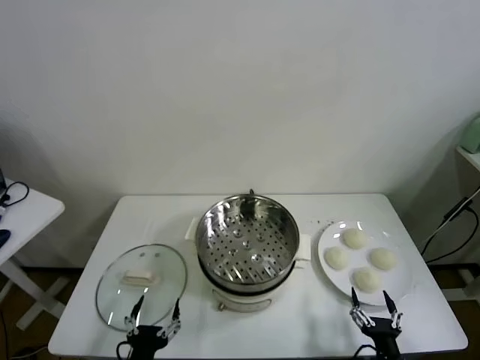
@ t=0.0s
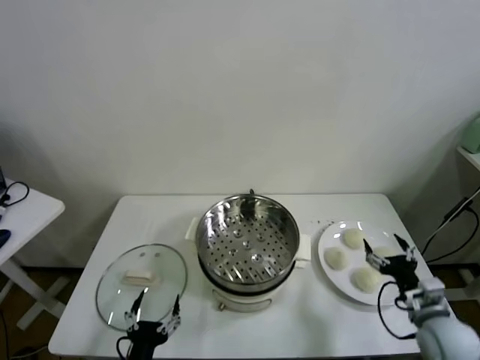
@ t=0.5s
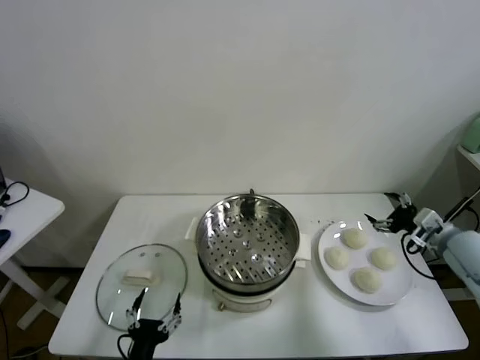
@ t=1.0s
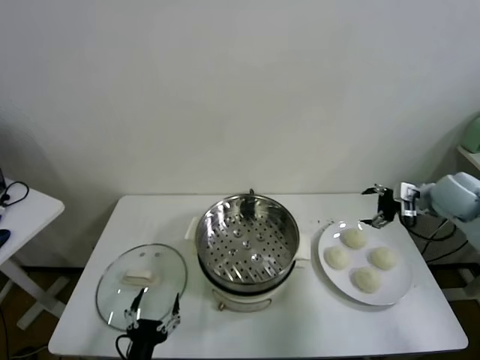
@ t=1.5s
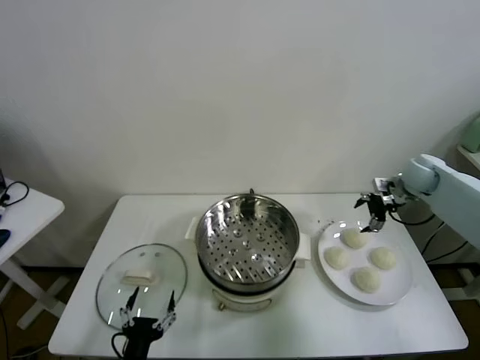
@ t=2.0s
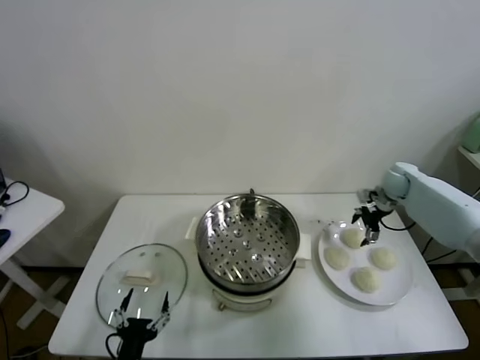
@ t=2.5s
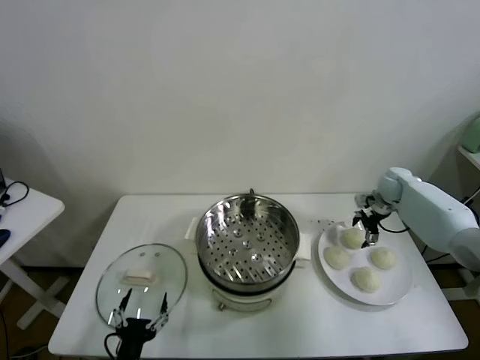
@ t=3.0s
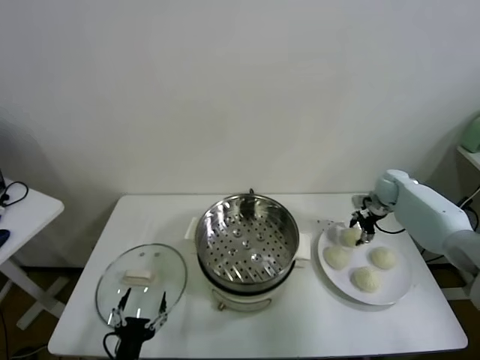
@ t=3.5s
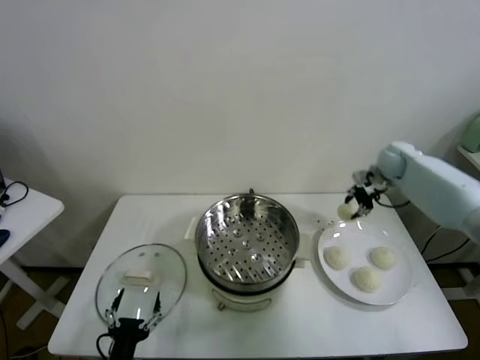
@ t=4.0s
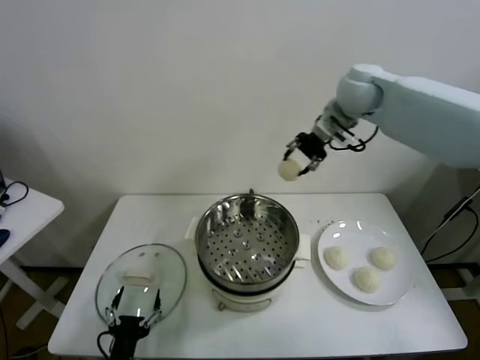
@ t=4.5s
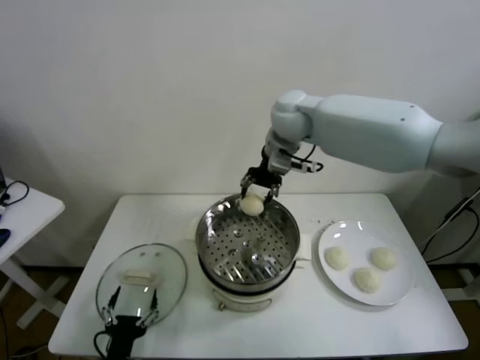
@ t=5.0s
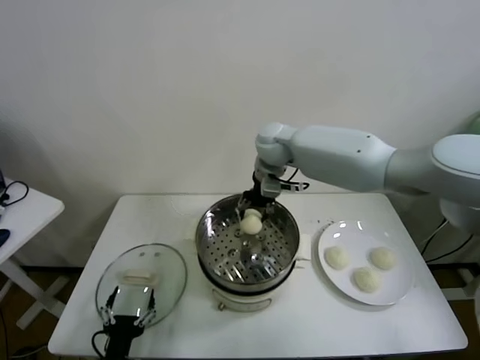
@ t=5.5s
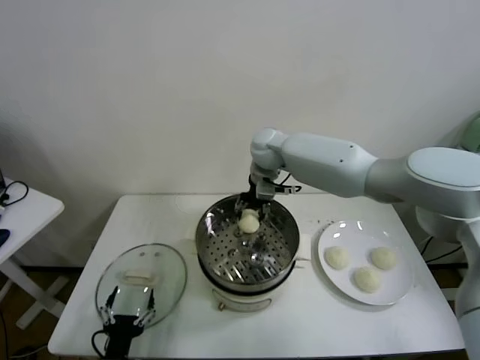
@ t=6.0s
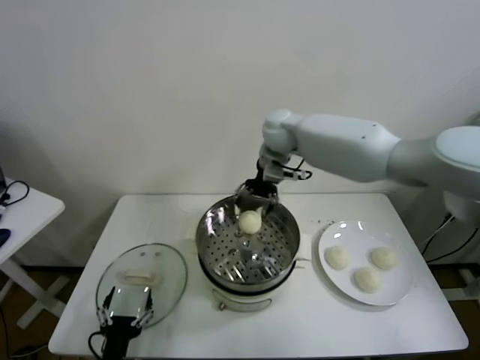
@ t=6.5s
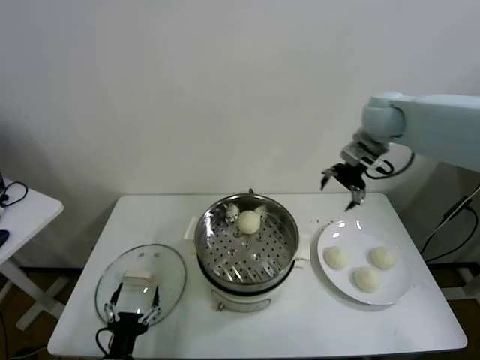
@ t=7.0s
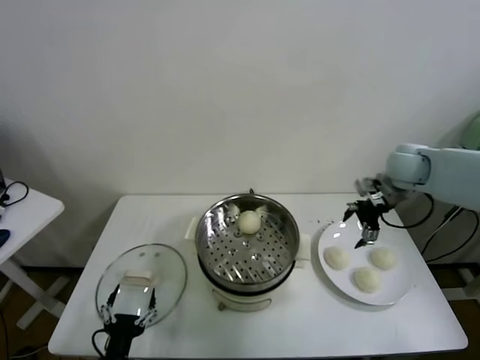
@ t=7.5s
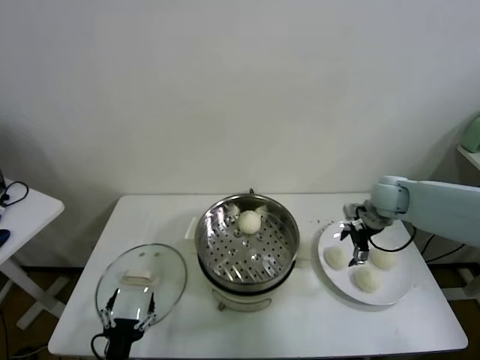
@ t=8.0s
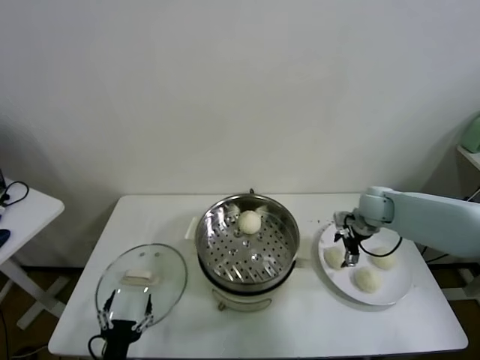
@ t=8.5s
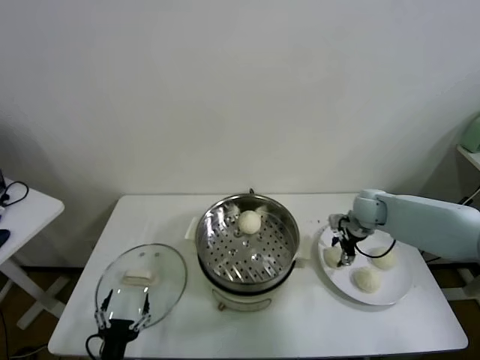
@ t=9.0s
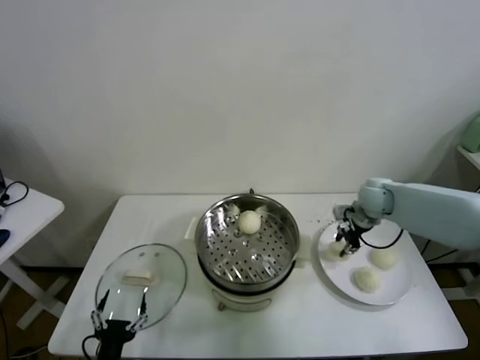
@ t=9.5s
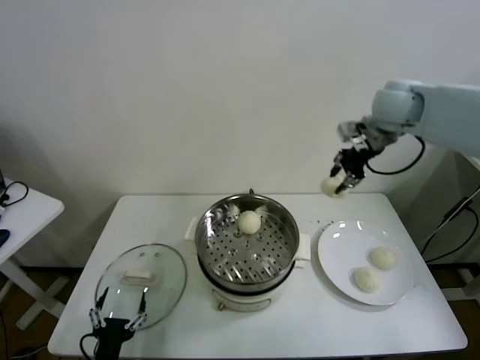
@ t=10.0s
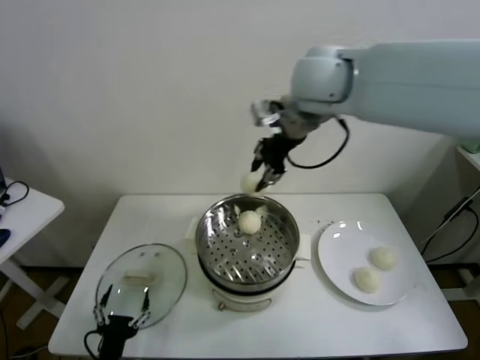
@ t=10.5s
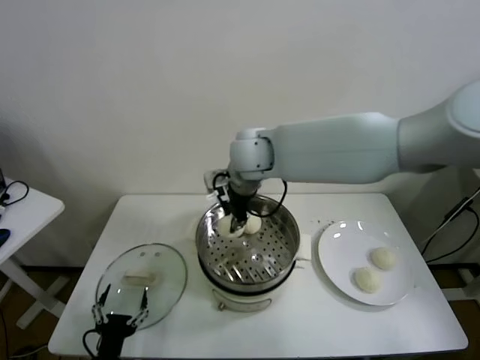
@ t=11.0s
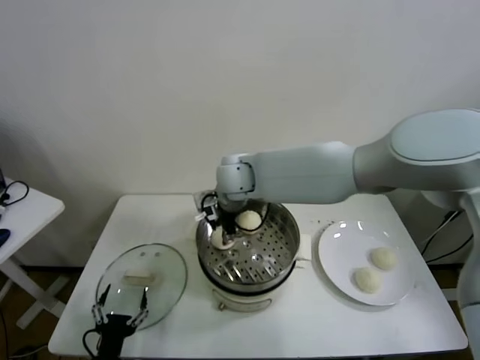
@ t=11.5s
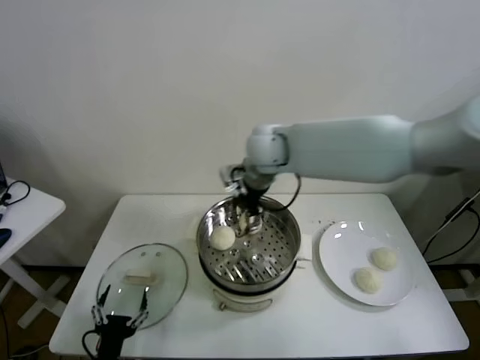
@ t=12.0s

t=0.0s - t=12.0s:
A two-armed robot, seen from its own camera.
Task of the whole recording: take steamed baozi put them in steamer.
Step, t=0.0s - t=3.5s: Grasp the baozi in the plate with right gripper.
Step, t=4.0s - t=6.5s: Place the baozi on the steamer with right gripper.
Step, t=7.0s - t=9.0s: Grasp the baozi in the plate with right gripper.
Step, t=9.5s - t=11.5s: Place the baozi on the steamer with right gripper.
t=2.0s - t=4.0s: The right gripper moves upward, about 5 cm, and closes.
t=4.0s - t=6.0s: The right gripper moves to the left, approximately 30 cm.
t=6.0s - t=8.0s: The right gripper shifts about 30 cm to the right, and opens its fingers.
t=8.0s - t=10.0s: The right gripper is displaced upward by roughly 25 cm, and closes up.
t=10.0s - t=12.0s: The right gripper moves to the left, some 20 cm, and opens up.

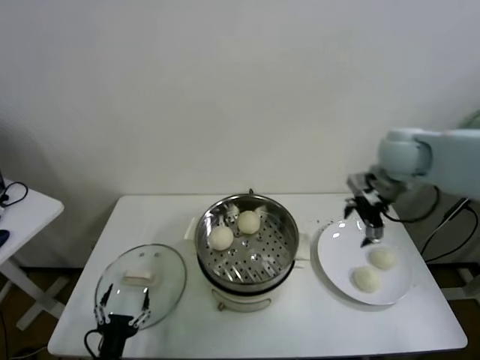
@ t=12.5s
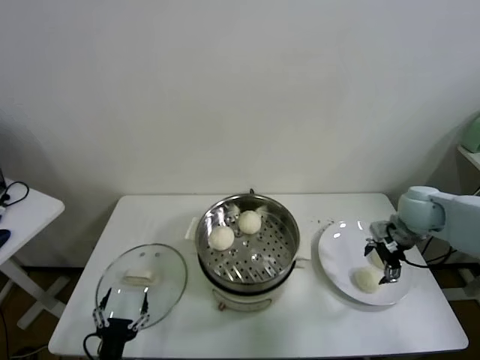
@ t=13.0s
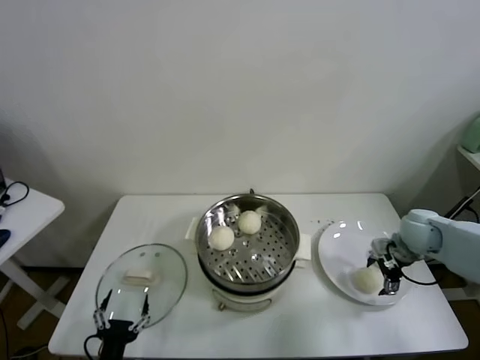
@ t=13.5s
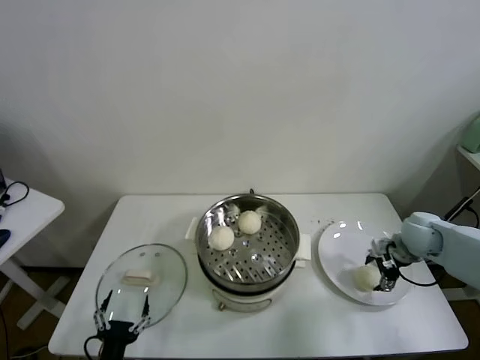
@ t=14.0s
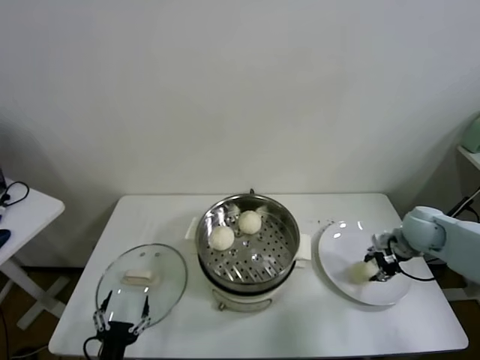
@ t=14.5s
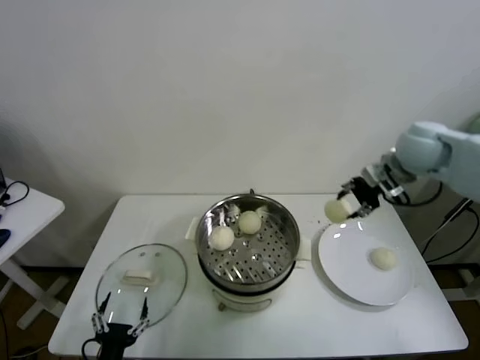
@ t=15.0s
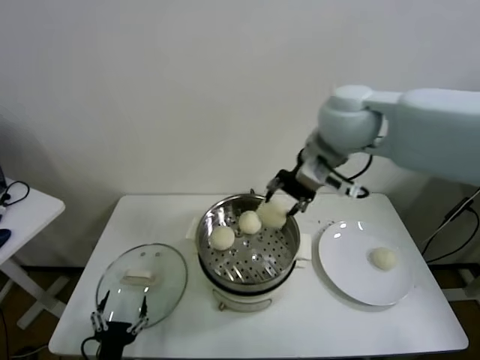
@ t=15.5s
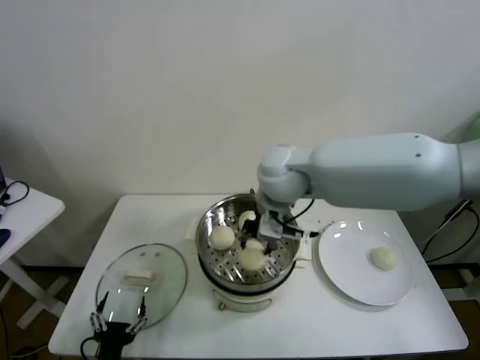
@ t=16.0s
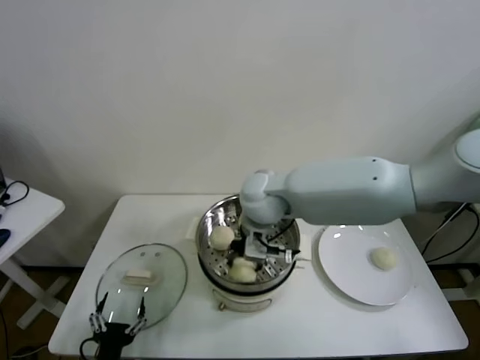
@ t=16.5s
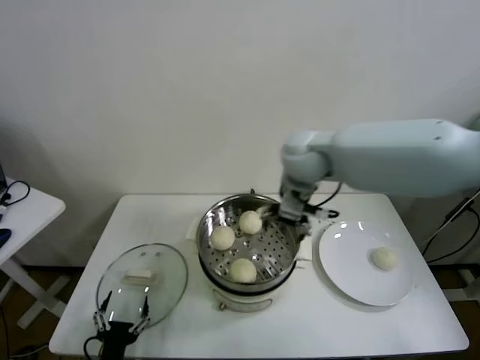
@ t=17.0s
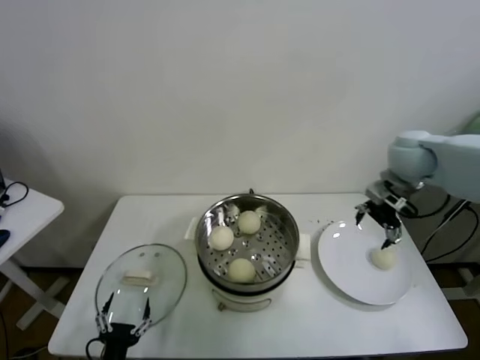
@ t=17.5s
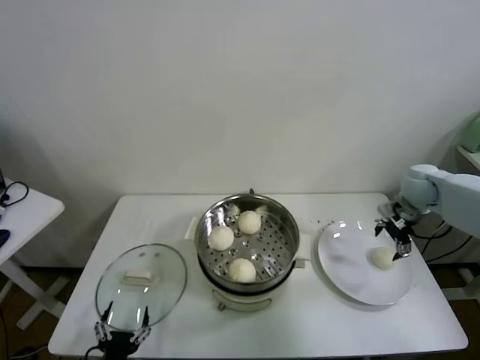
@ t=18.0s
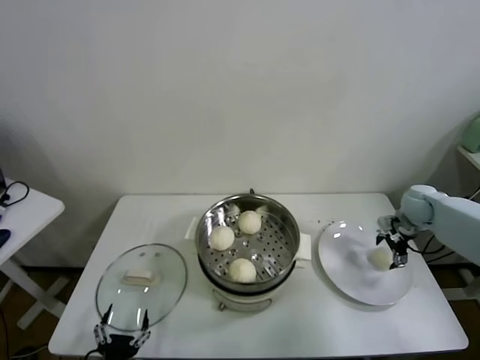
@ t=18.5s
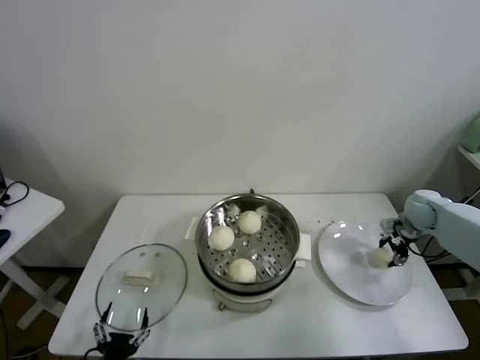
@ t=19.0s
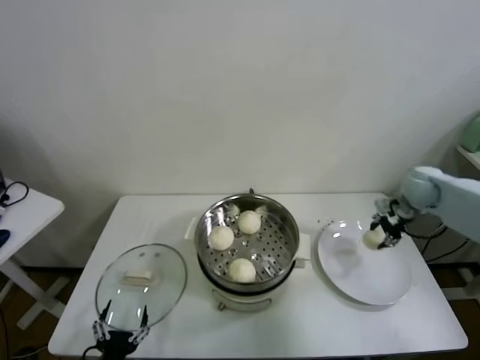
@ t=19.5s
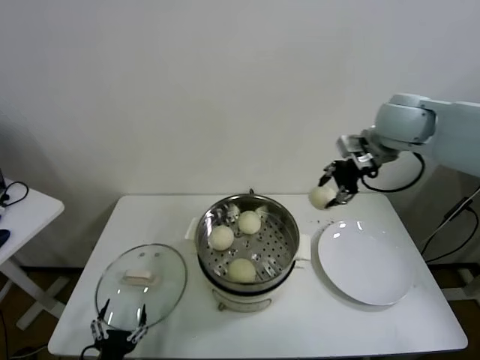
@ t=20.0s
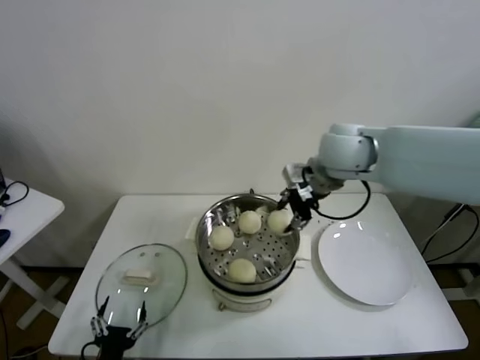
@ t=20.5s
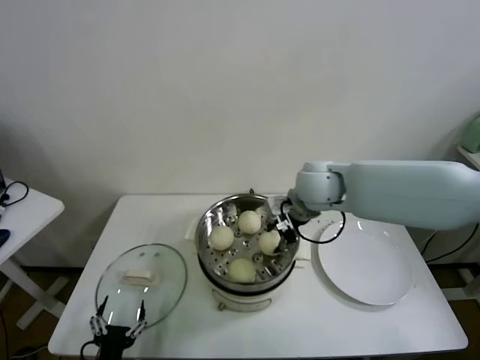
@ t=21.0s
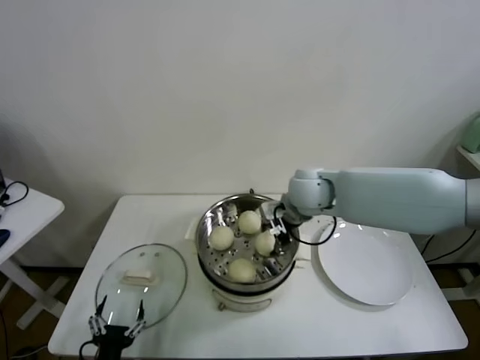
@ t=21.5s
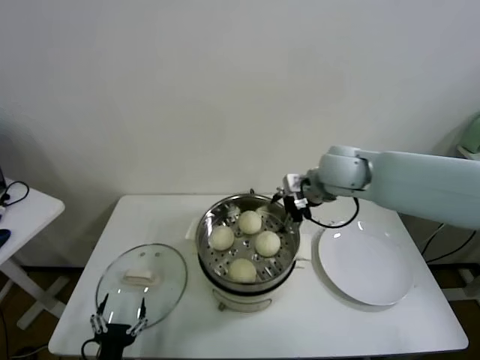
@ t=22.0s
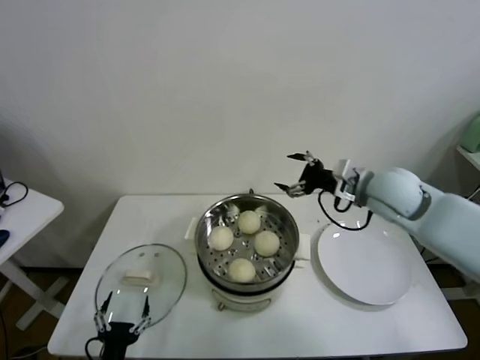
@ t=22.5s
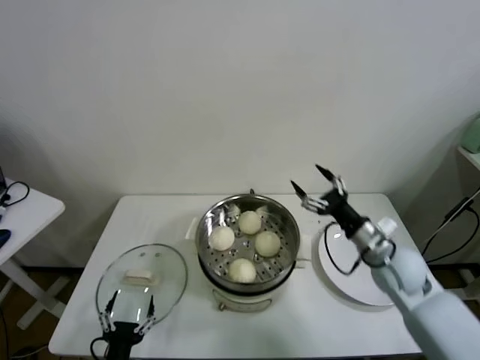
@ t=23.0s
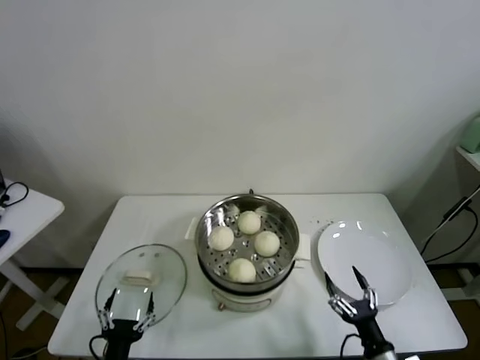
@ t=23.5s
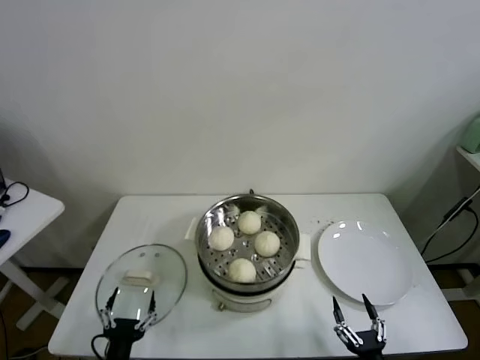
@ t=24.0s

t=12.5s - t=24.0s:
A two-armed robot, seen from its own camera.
Task of the whole recording: take steamed baozi put them in steamer.
Step, t=12.5s - t=14.0s: Grasp the baozi in the plate with right gripper.
Step, t=14.5s - t=16.5s: Place the baozi on the steamer with right gripper.
Step, t=17.0s - t=18.5s: Grasp the baozi in the plate with right gripper.
Step, t=19.0s - t=21.5s: Place the baozi on the steamer with right gripper.
t=12.5s - t=14.5s: The right gripper travels downward and to the right by some 20 cm, and closes.
t=14.5s - t=16.5s: The right gripper heads to the left, covering roughly 40 cm.
t=16.5s - t=18.5s: The right gripper travels to the right by roughly 40 cm, and opens.
t=18.5s - t=20.0s: The right gripper goes some 30 cm upward and to the left, and closes up.
t=20.0s - t=22.0s: The right gripper moves to the left and downward, some 15 cm, and opens.
t=22.0s - t=24.0s: The right gripper travels backward and downward by roughly 50 cm.
